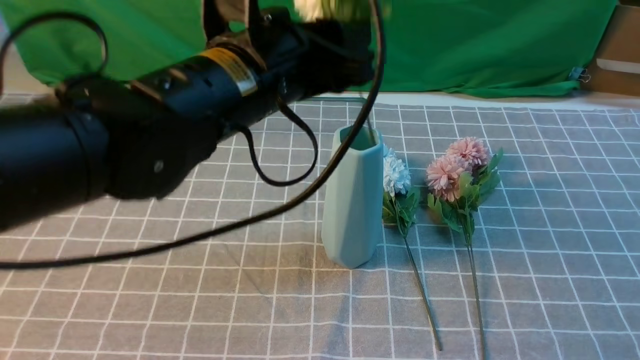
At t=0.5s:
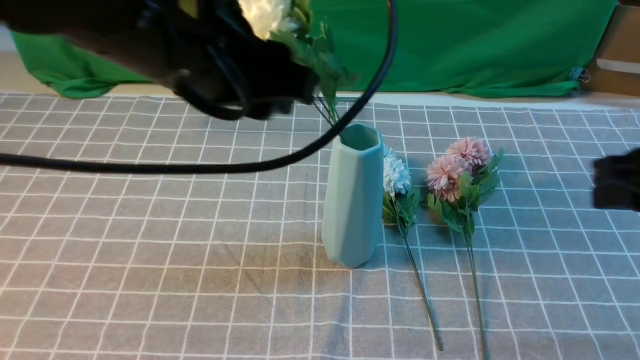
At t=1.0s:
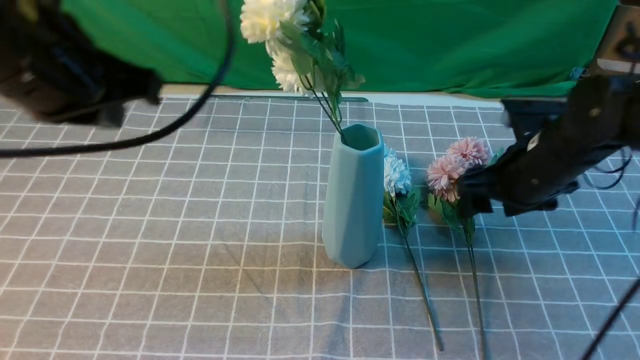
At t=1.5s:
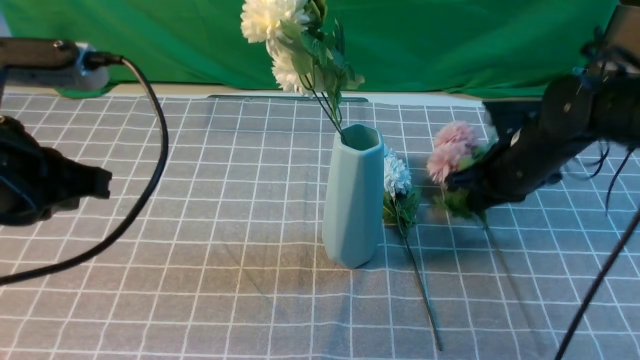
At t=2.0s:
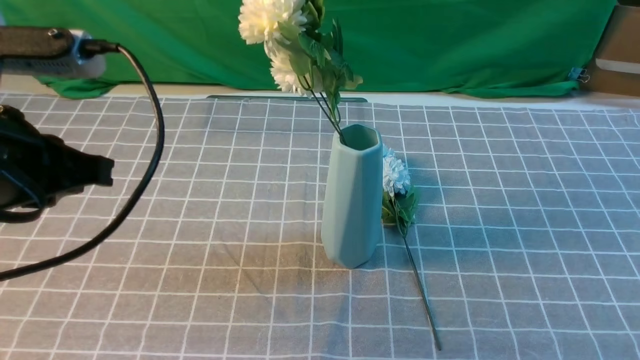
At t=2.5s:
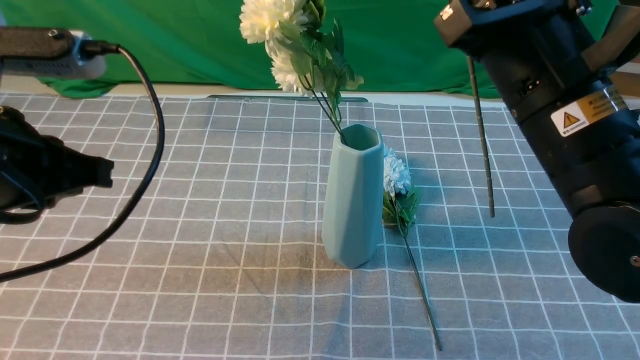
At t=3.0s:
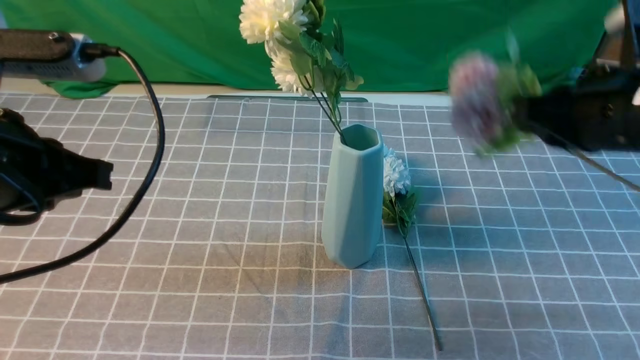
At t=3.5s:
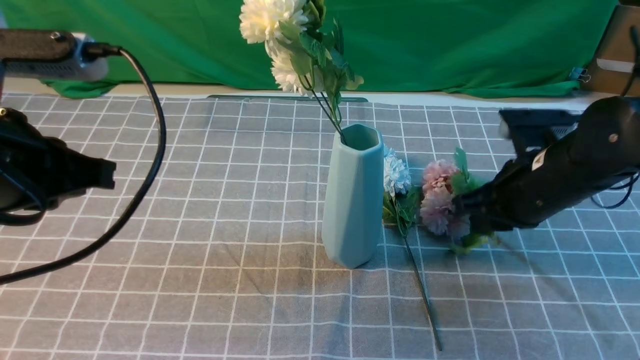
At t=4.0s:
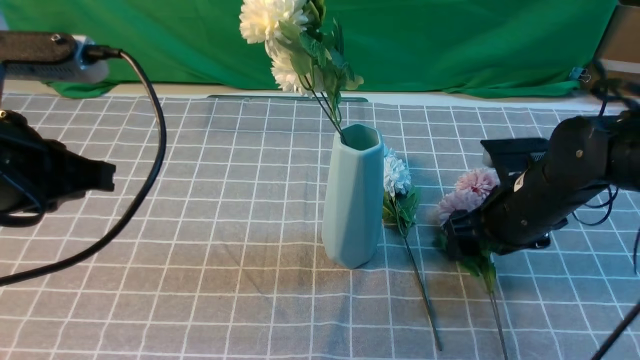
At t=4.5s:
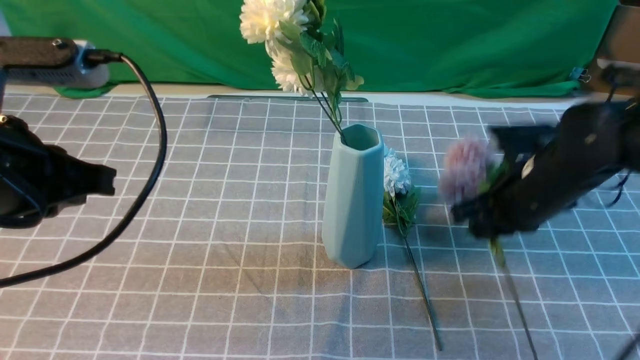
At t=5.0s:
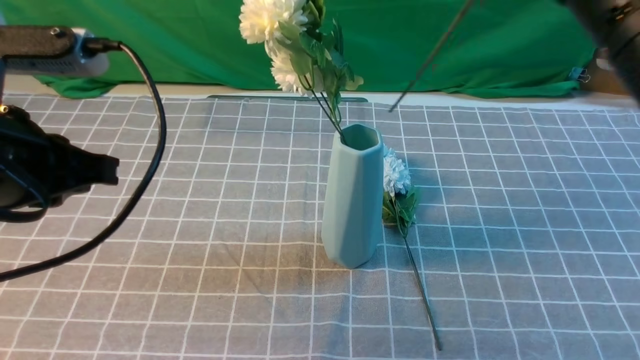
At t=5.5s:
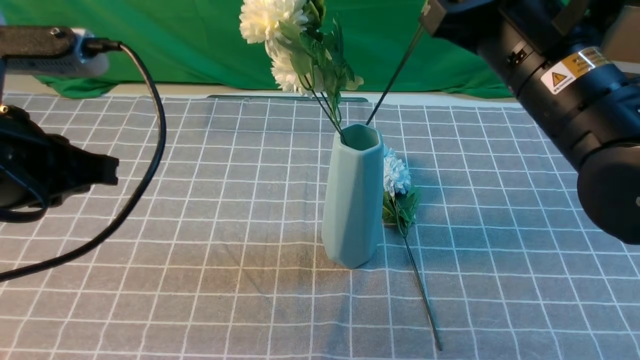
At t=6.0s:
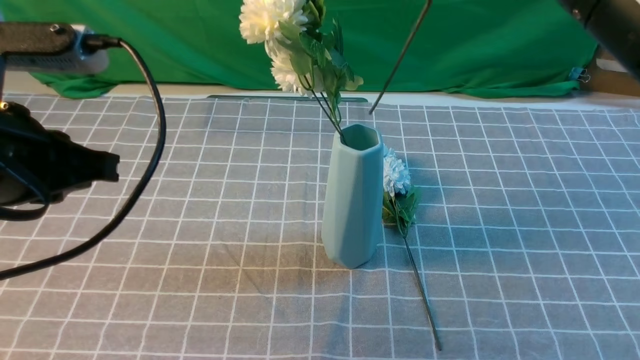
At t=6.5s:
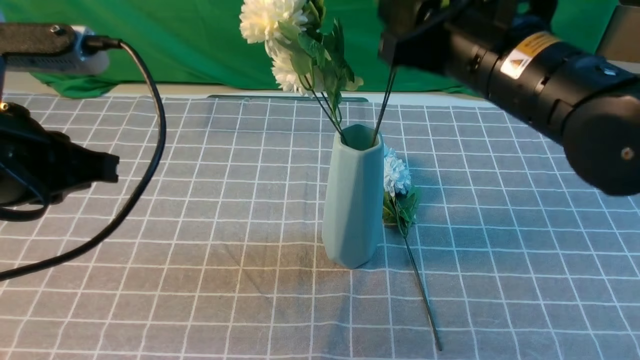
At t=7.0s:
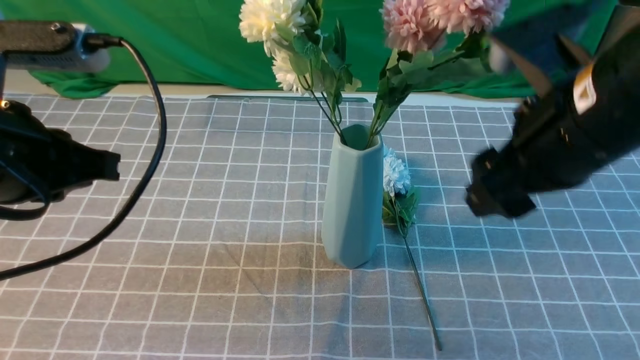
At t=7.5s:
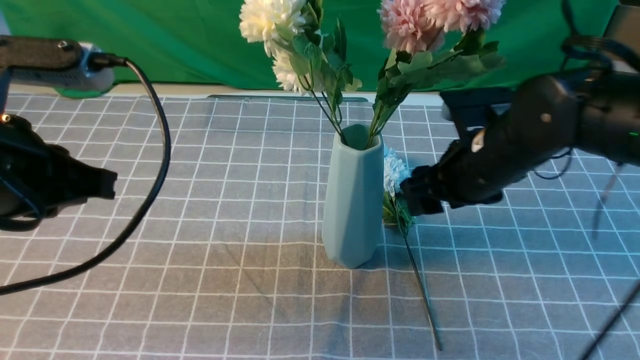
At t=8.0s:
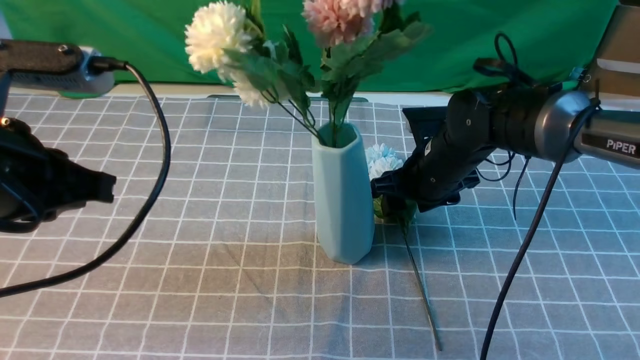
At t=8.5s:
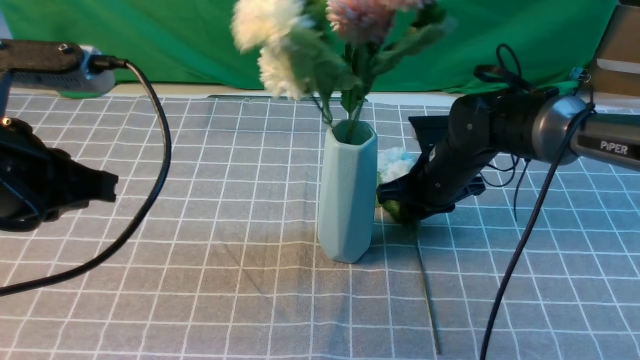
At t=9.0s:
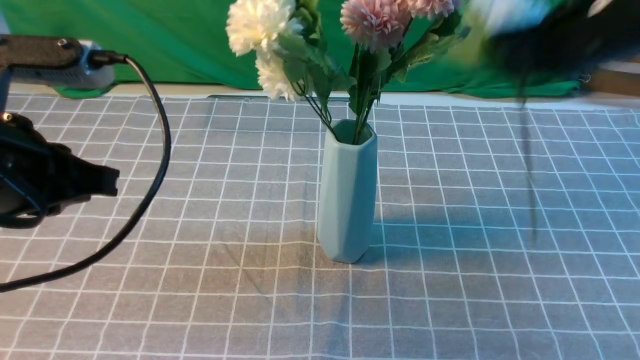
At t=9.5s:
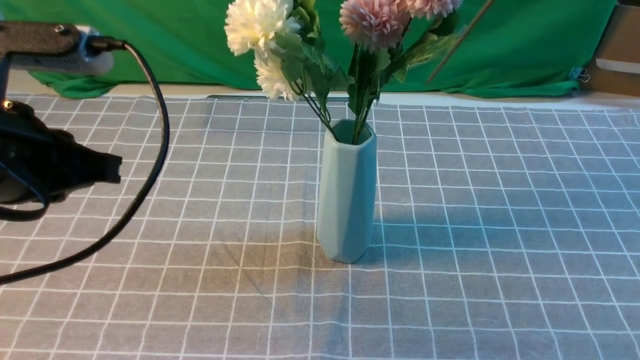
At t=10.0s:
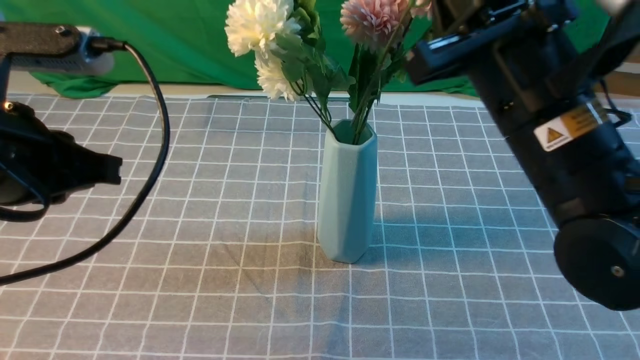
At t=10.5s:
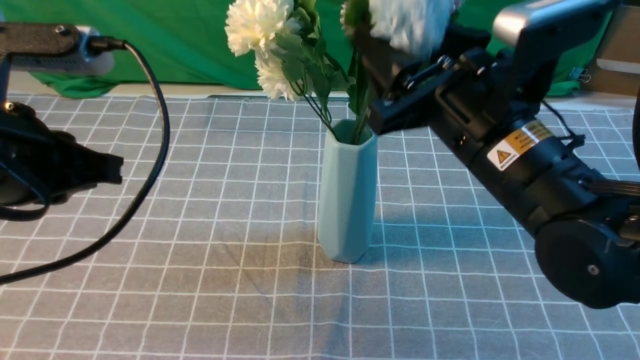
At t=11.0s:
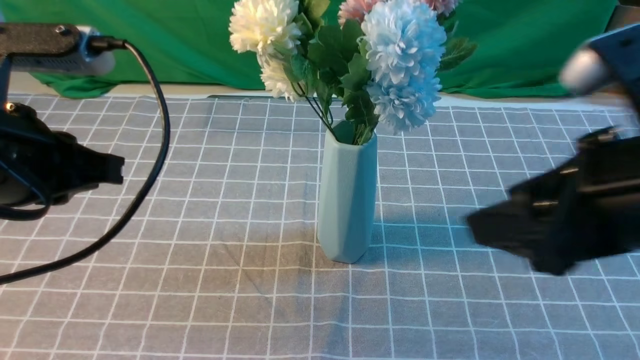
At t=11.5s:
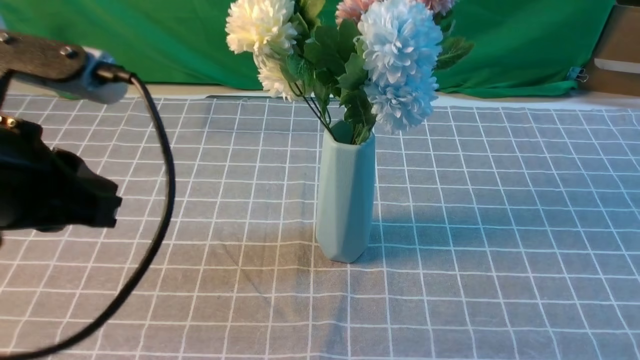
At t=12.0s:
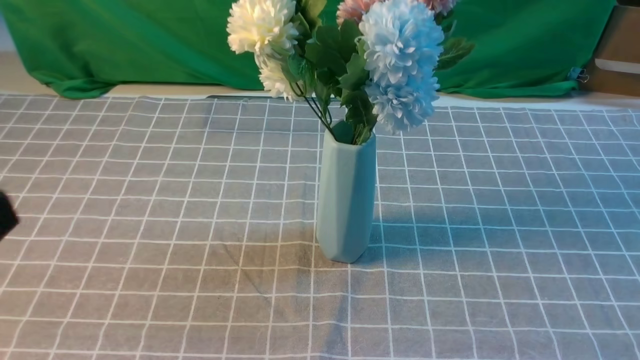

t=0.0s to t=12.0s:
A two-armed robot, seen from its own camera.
Task of the whole recording: insert the flowers into the vase on the table with the grey tablecloth.
Step, t=0.5s to t=4.0s: use the right arm to grab a bunch of fresh flowers.
Step, t=4.5s to t=6.5s: use the right arm to insert the flowers into the vase.
Step, t=7.0s to t=8.5s: use the right arm to grab a bunch of fresh flowers.
Step, t=9.0s to t=10.5s: use the right arm to insert the flowers into the vase.
t=0.0s to t=2.0s: The right gripper travels forward, to the left and upward by about 20 cm, and opens, then closes again, while the left gripper shifts approximately 20 cm to the left and backward, and closes.
t=2.0s to t=4.0s: The right gripper shifts approximately 25 cm downward, and opens its fingers.
t=4.0s to t=6.0s: The right gripper travels upward by some 25 cm, and closes.
t=6.0s to t=8.0s: The right gripper goes roughly 30 cm downward and forward, and opens its fingers.
t=8.0s to t=10.0s: The right gripper travels upward and backward by approximately 25 cm, and closes.
t=10.0s to t=12.0s: The right gripper is displaced backward and to the right by roughly 25 cm, and opens, then closes again; the left gripper is displaced backward by some 15 cm.

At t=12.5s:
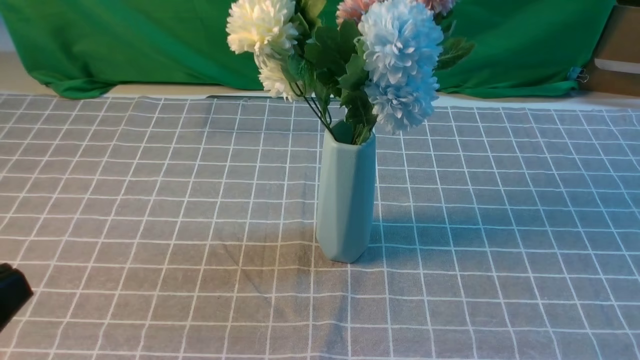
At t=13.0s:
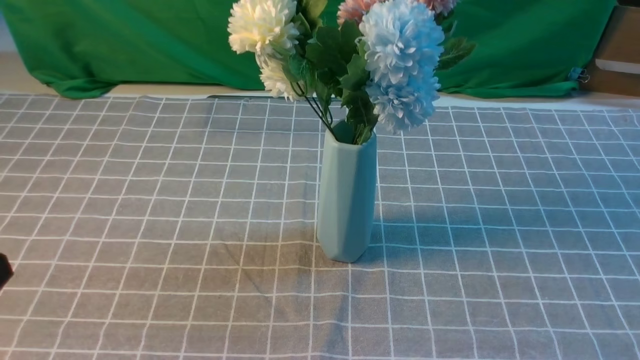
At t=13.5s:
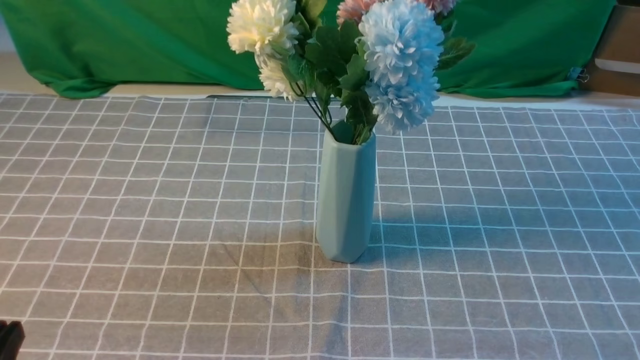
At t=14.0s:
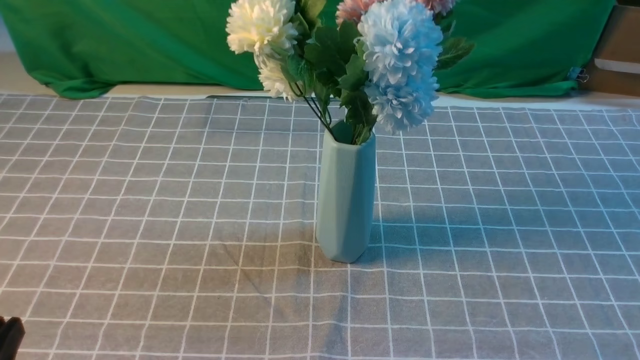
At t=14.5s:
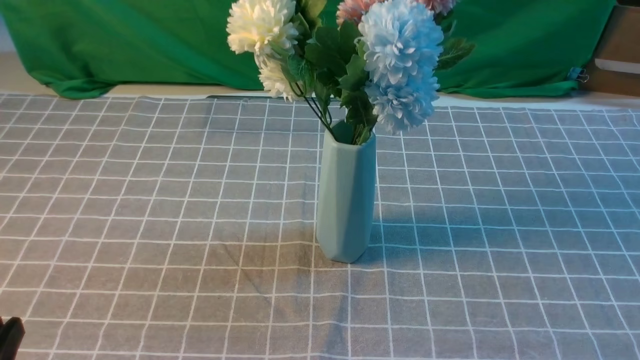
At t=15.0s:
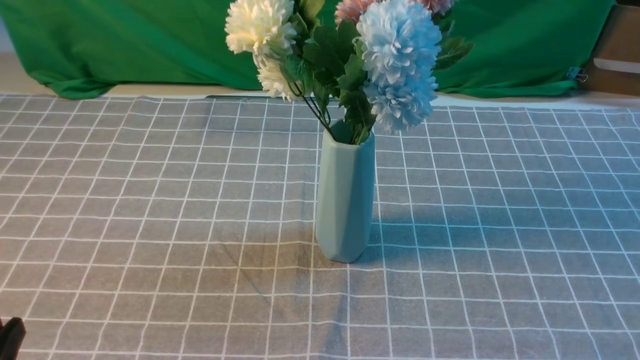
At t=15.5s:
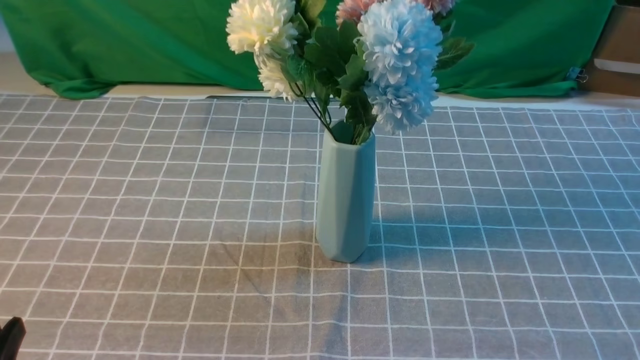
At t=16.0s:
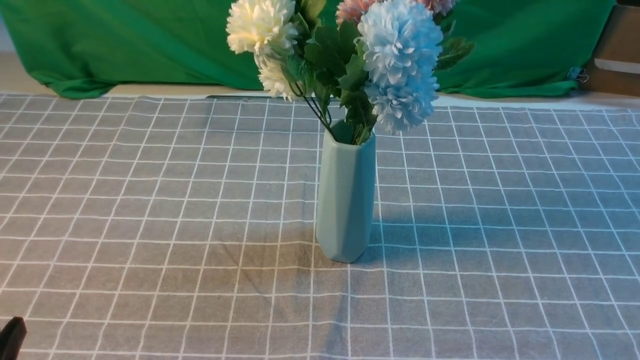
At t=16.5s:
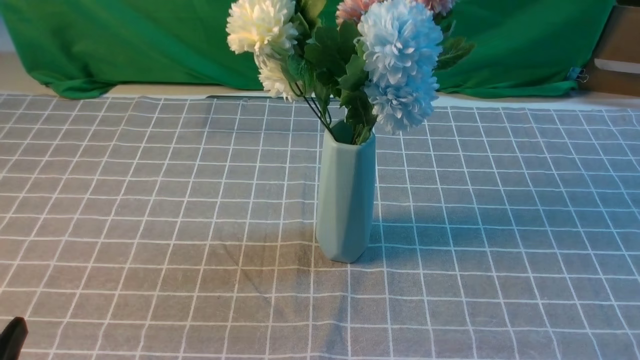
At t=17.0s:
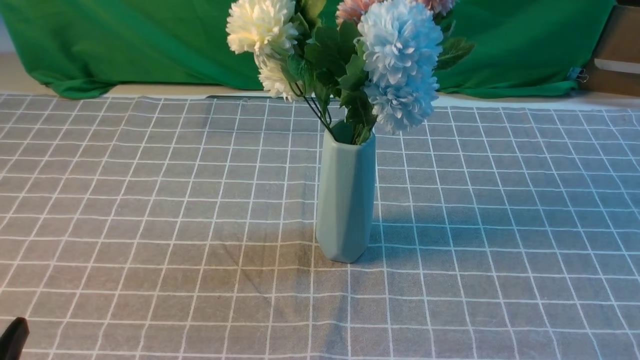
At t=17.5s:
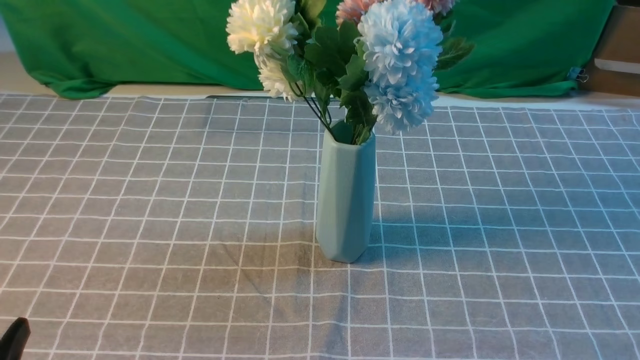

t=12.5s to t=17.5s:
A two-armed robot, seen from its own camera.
Task of the whole recording: insert the flowers into the vase on the table with the grey tablecloth.
t=12.5s to t=15.0s: The left gripper heads downward, covering some 15 cm.
